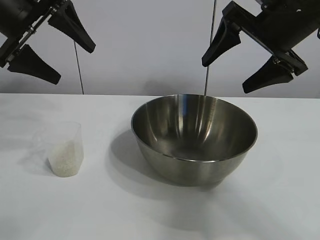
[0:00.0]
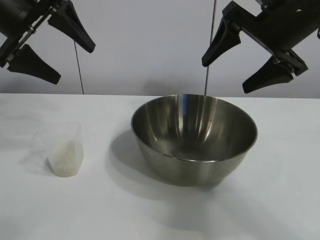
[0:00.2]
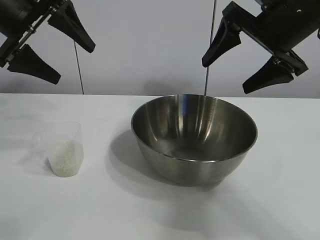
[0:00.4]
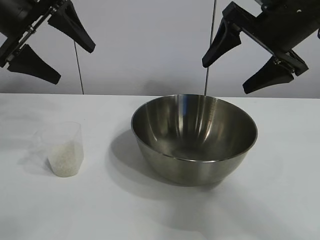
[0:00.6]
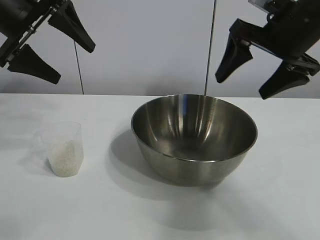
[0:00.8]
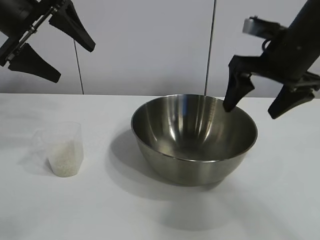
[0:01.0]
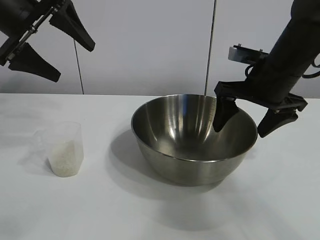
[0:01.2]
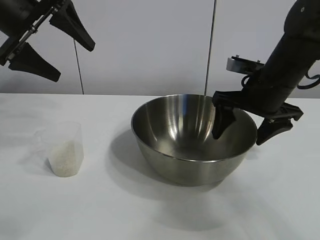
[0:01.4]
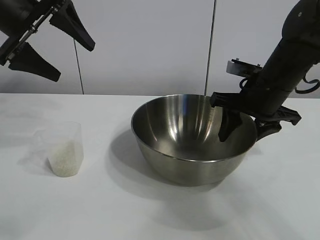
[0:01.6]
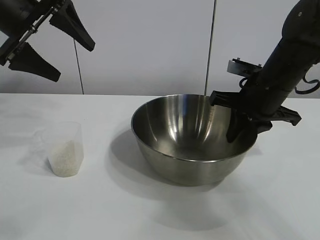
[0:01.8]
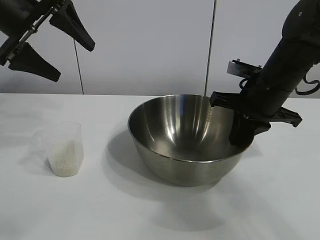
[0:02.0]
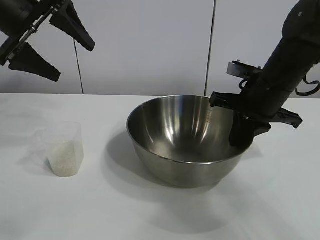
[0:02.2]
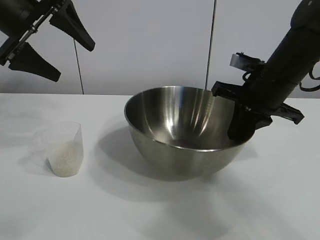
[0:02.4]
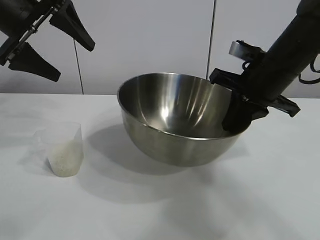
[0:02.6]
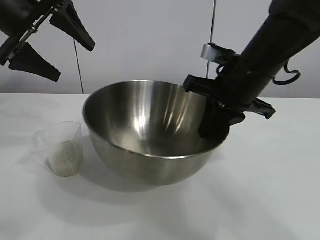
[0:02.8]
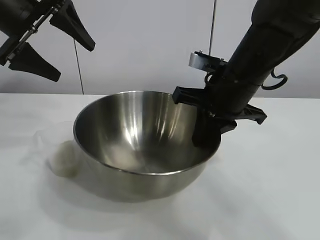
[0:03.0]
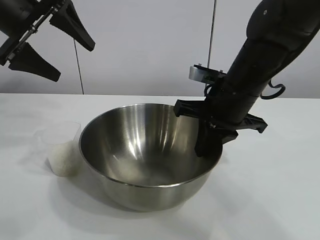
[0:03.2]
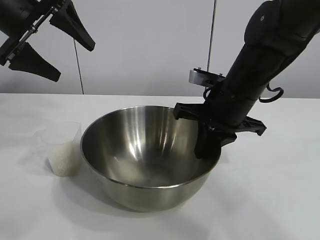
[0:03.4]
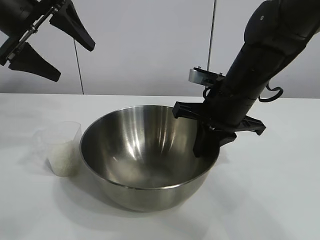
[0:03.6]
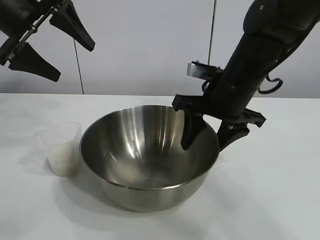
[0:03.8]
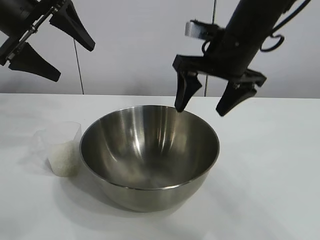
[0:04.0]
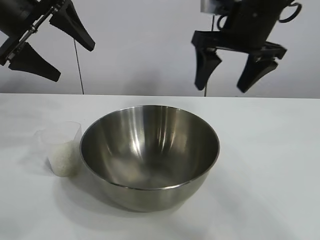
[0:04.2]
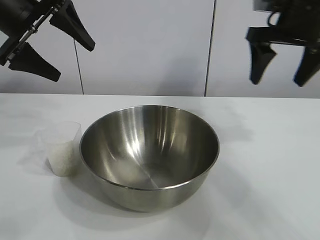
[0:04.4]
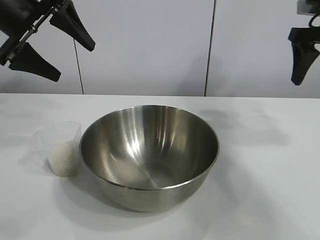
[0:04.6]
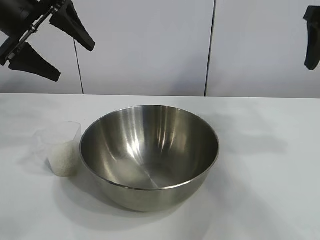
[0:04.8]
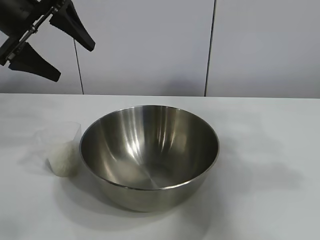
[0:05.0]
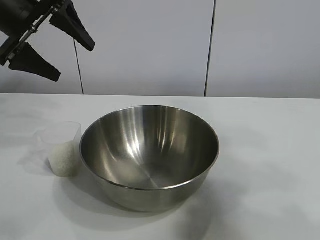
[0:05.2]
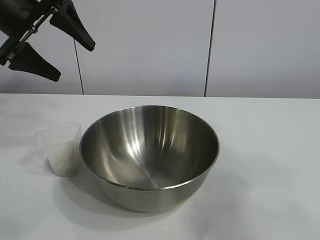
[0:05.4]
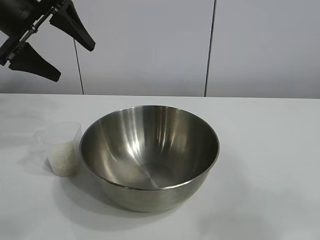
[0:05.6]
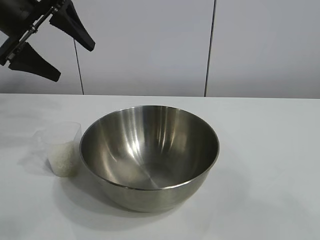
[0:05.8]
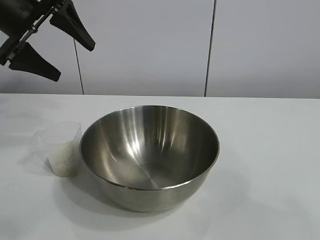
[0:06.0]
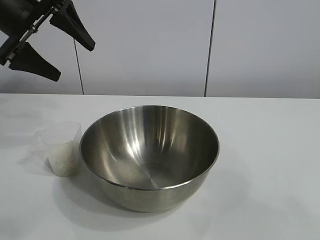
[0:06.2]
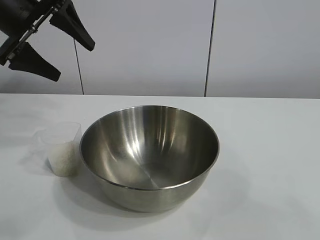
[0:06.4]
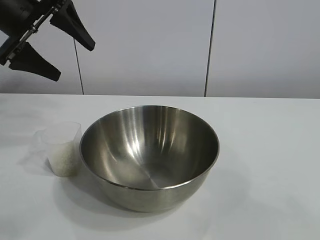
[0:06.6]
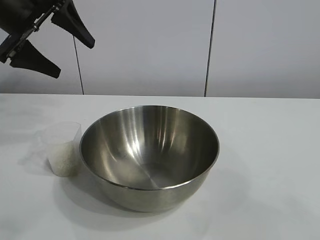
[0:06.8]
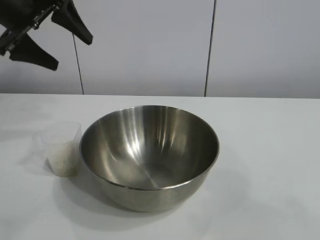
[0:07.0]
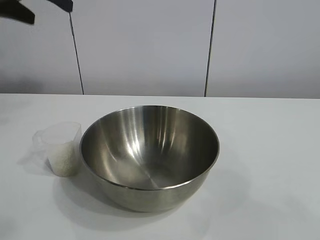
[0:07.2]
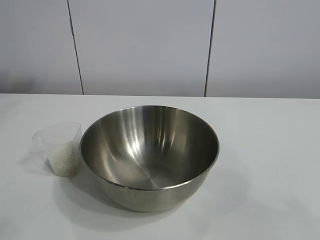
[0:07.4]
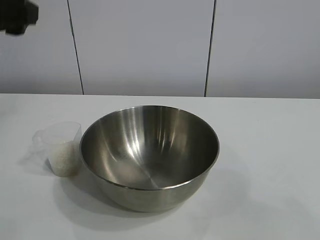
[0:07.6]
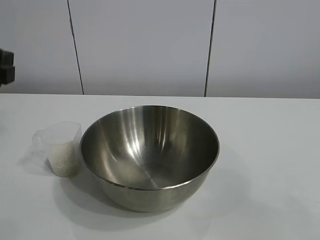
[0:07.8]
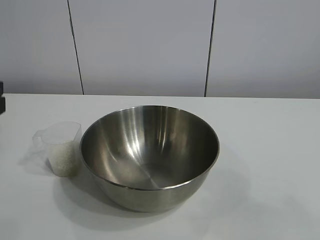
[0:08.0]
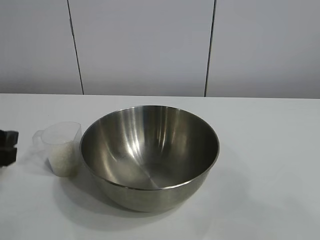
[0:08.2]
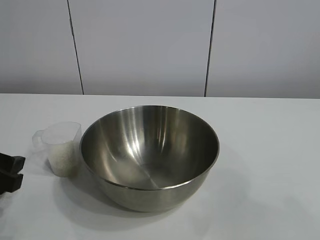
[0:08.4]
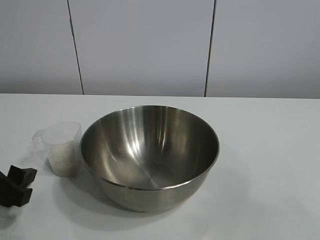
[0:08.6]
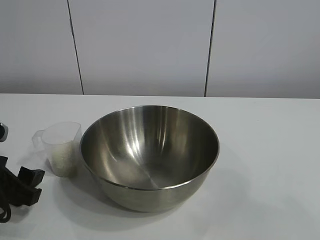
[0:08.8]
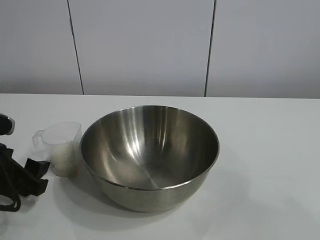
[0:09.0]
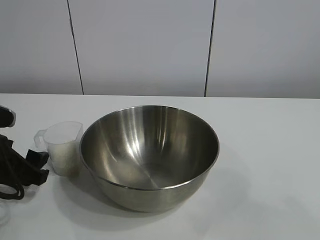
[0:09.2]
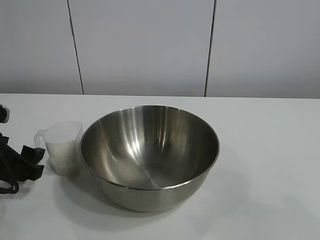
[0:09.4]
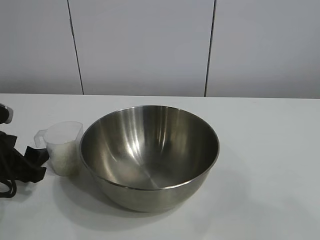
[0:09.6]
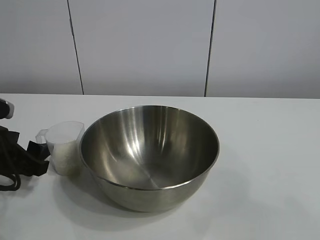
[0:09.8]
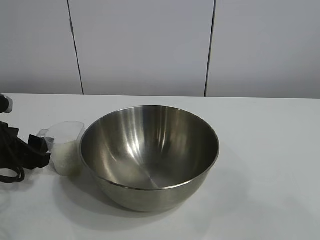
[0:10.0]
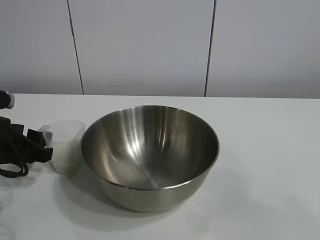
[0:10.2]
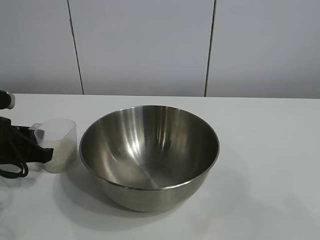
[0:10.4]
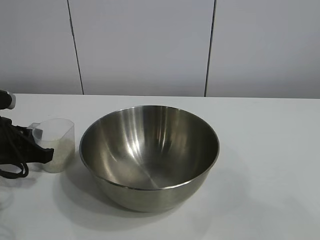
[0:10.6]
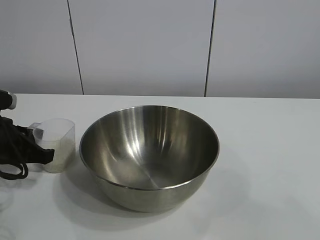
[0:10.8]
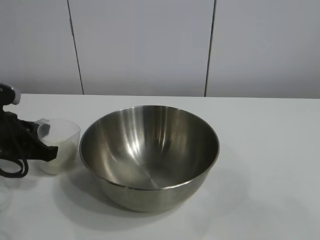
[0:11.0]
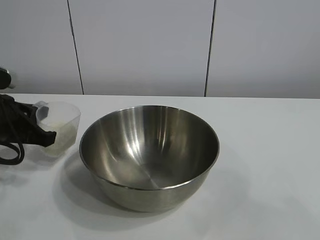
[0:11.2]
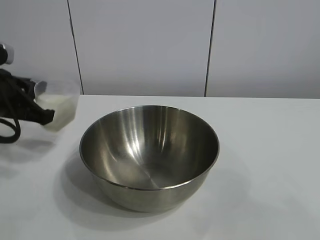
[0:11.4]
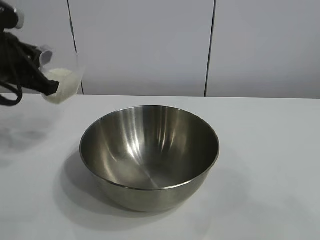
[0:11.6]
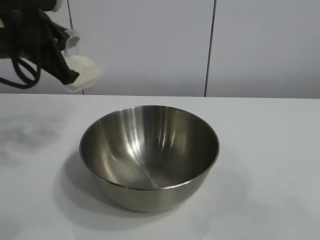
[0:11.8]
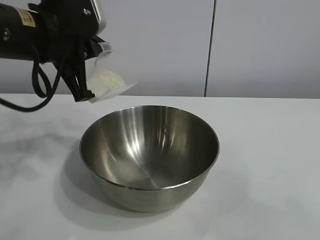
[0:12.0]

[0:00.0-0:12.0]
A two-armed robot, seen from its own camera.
Task of the whole recording: the right gripper grasp the rice container and place it in the center of the table, the left gripper grasp the rice scoop and pour the rice into the rice container.
Step, 0:00.6 to 0:03.8: Move the bowl in the center of view with right gripper.
Step, 0:04.0 to 0:10.6: Grasp the cup with rice in it with left gripper.

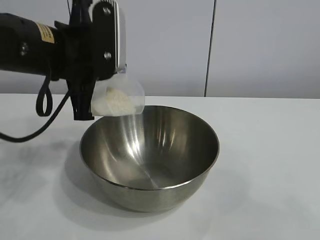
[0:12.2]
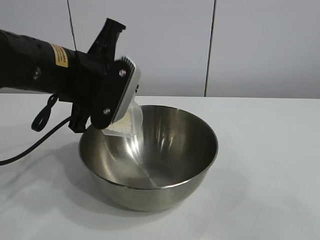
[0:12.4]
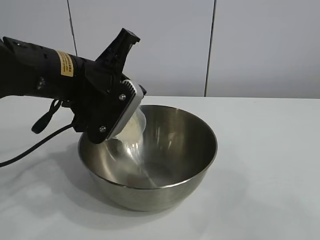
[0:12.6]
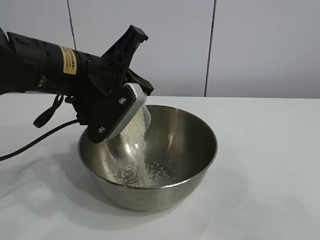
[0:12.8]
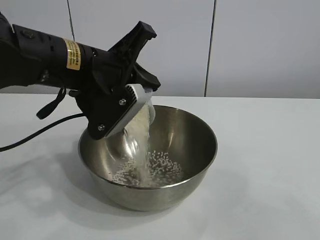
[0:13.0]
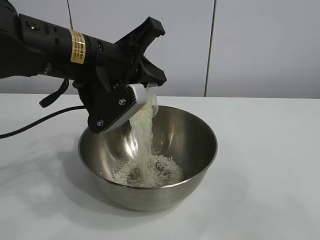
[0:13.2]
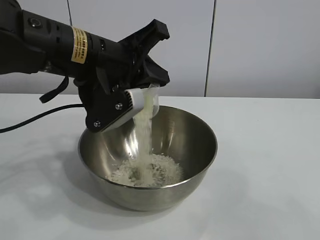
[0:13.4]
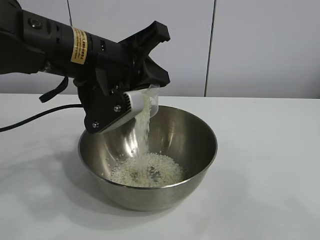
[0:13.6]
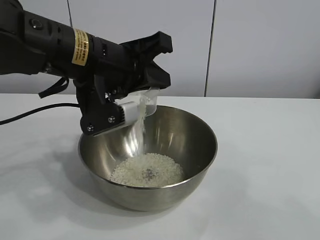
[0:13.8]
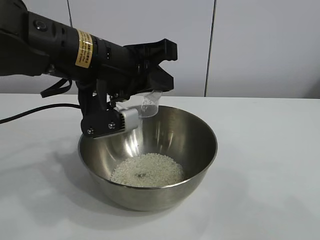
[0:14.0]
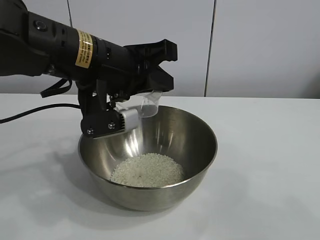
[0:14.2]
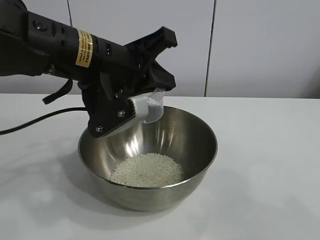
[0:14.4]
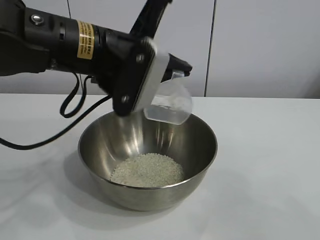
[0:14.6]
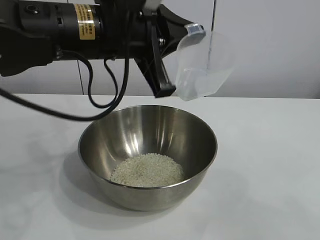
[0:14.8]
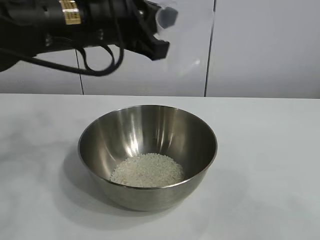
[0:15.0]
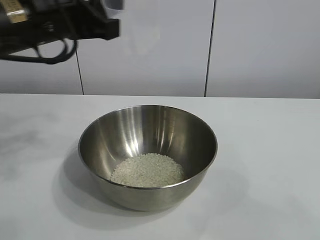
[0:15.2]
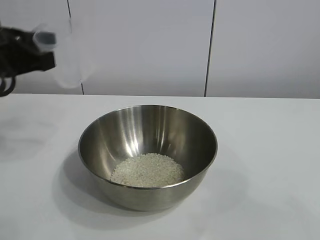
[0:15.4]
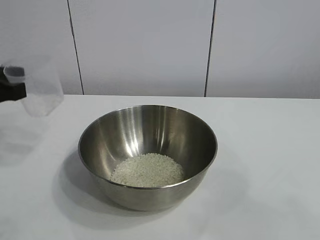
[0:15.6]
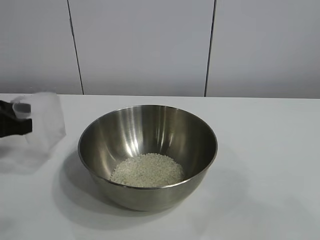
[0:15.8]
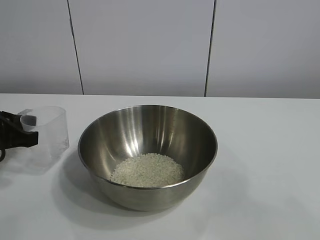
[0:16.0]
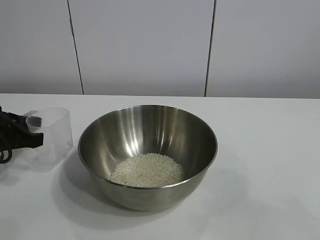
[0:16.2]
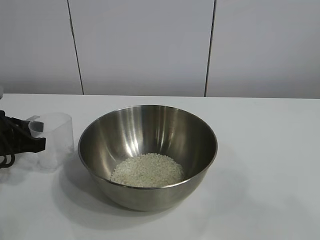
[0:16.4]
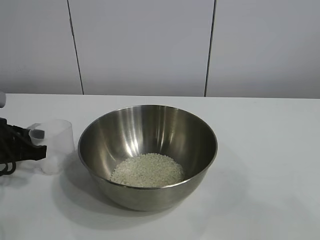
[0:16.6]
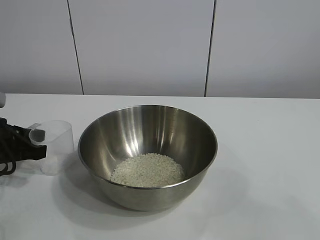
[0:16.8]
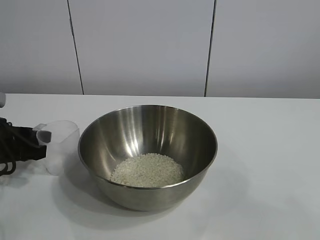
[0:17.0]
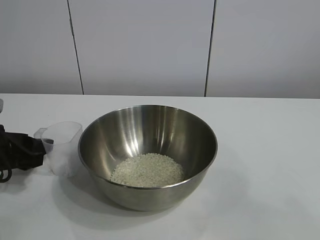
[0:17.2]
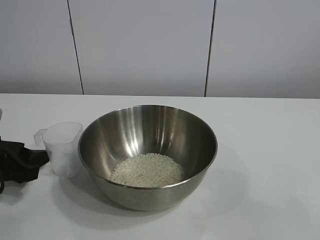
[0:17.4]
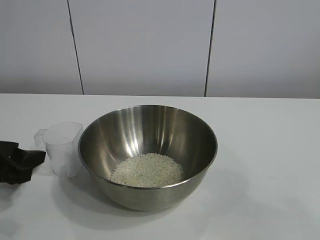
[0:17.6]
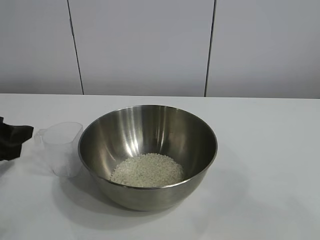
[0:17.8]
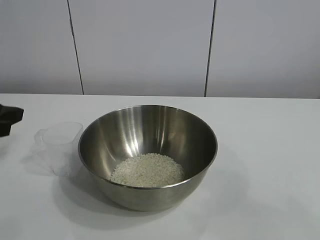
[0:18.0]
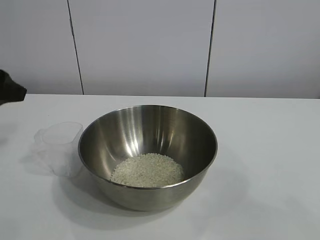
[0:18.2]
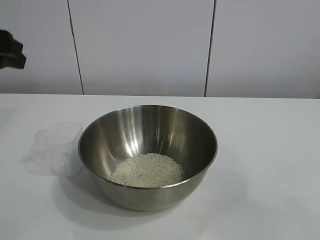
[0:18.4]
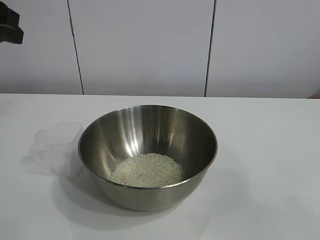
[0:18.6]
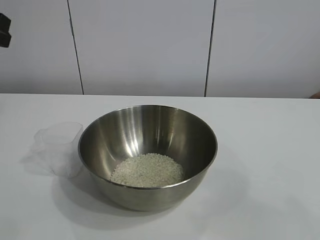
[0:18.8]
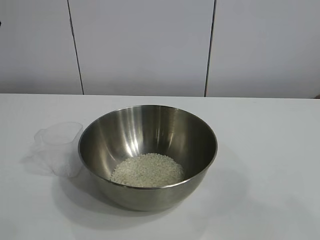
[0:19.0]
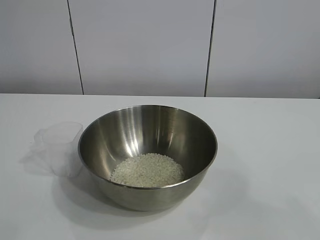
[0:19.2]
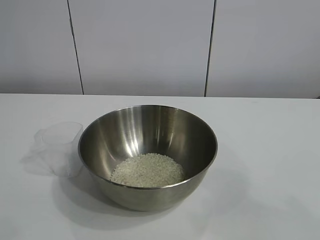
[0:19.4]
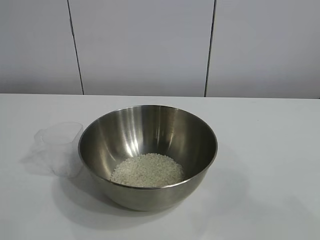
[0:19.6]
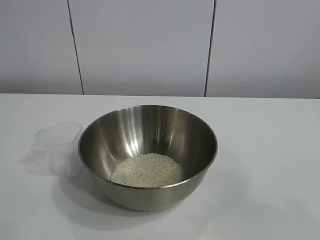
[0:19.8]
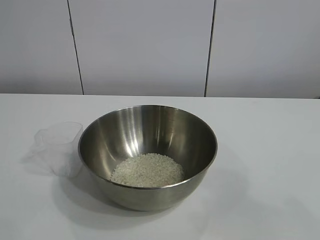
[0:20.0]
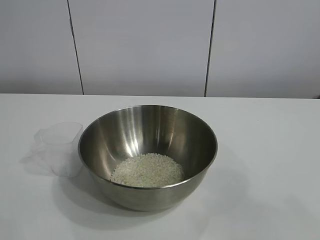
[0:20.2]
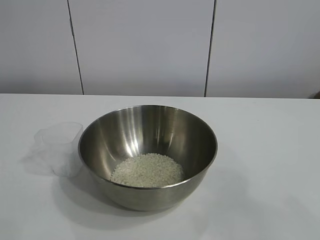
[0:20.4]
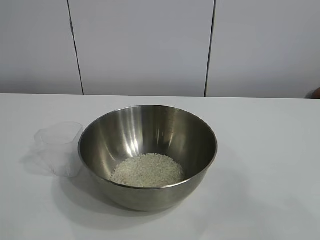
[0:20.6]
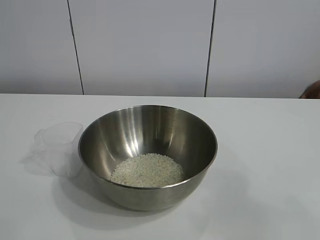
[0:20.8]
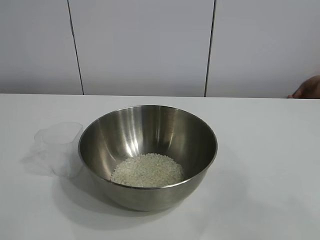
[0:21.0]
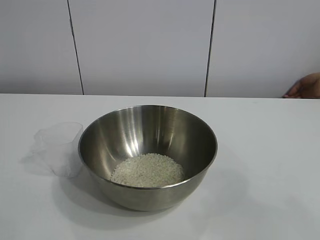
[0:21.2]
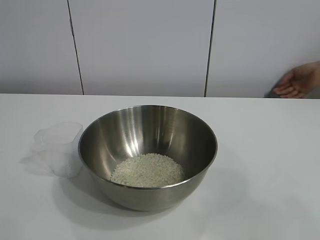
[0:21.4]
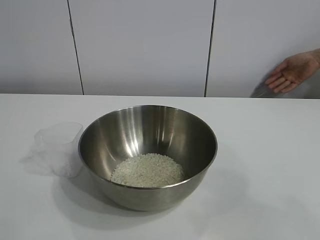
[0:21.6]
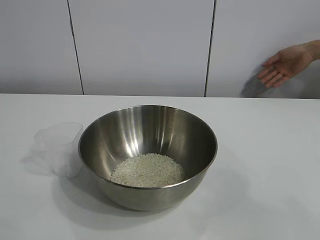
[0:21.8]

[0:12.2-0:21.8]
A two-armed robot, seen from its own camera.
Task of the whole recording: the right gripper grasp the rice container and place it in the center of the table, the left gripper grasp the rice scoop and pour the rice into the rice container.
Step, 0:12.2 to 0:14.0: Pour the rice from the cup into the bowl with the left gripper.
Step, 0:14.2 to 0:17.2: Place the cup on the table with the left gripper.
